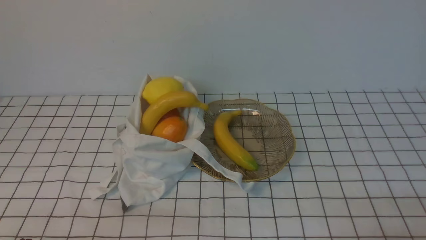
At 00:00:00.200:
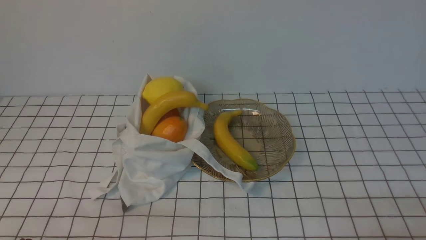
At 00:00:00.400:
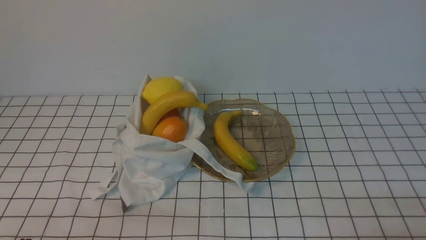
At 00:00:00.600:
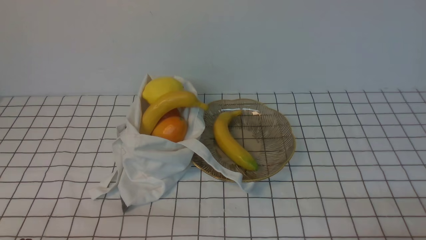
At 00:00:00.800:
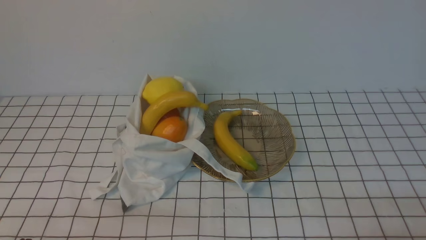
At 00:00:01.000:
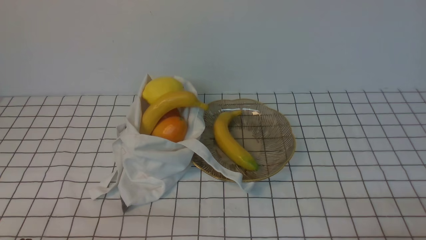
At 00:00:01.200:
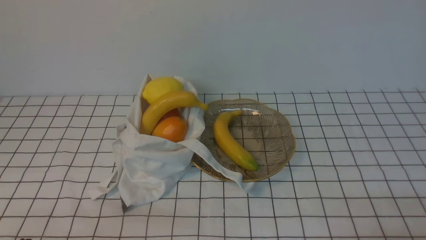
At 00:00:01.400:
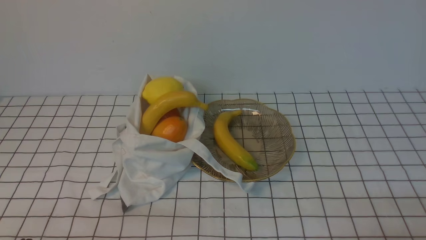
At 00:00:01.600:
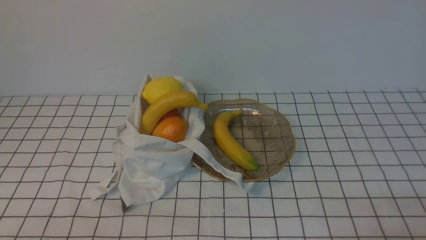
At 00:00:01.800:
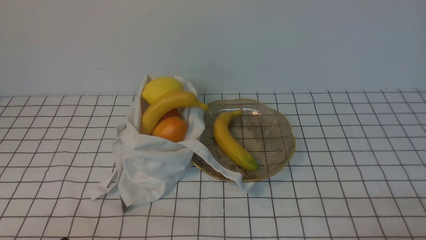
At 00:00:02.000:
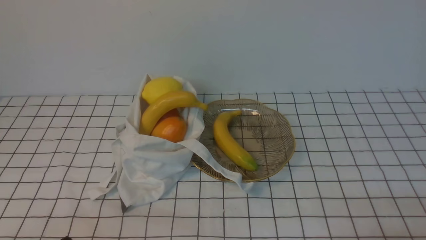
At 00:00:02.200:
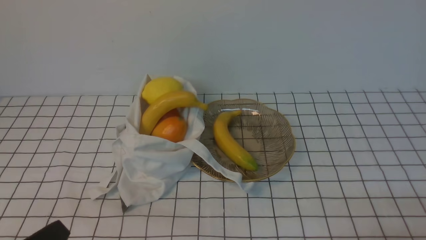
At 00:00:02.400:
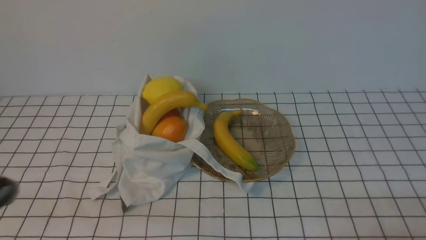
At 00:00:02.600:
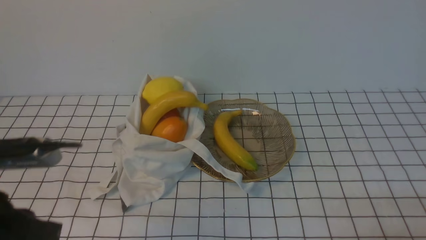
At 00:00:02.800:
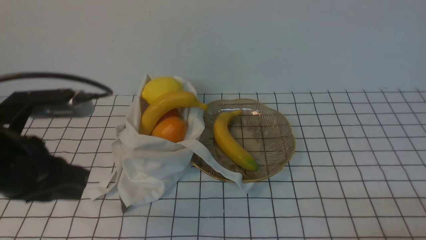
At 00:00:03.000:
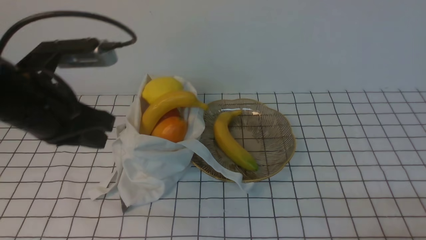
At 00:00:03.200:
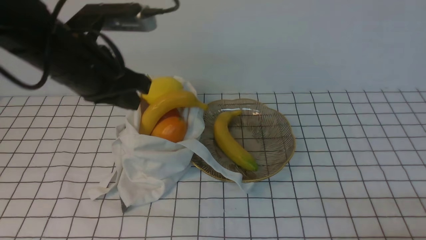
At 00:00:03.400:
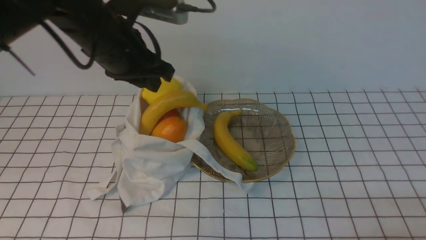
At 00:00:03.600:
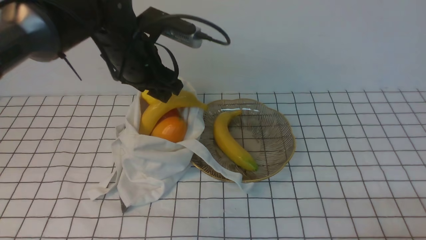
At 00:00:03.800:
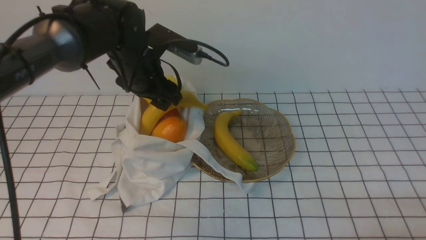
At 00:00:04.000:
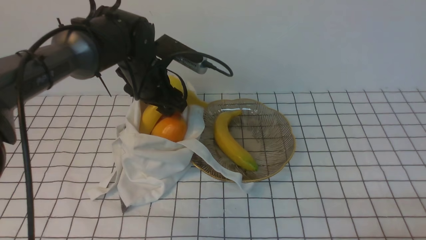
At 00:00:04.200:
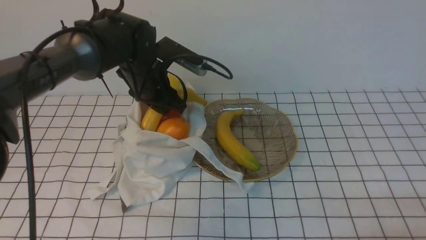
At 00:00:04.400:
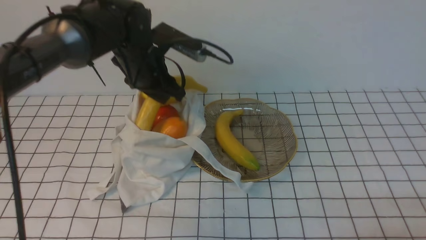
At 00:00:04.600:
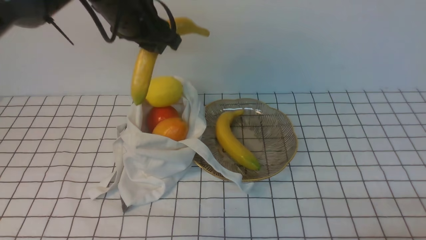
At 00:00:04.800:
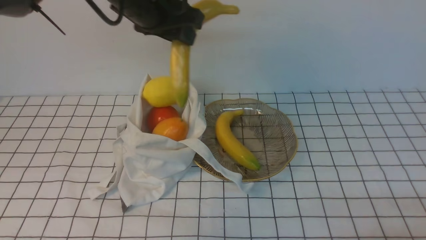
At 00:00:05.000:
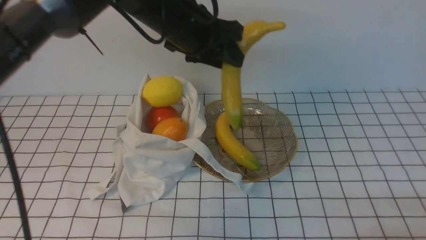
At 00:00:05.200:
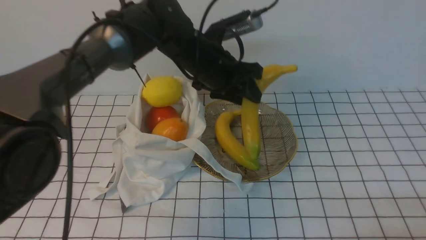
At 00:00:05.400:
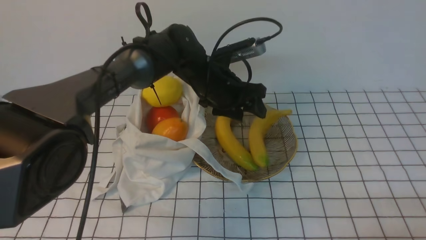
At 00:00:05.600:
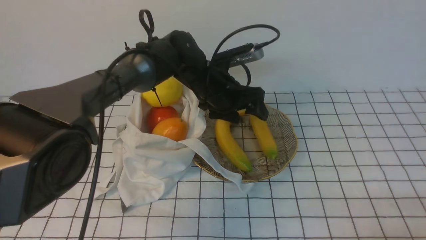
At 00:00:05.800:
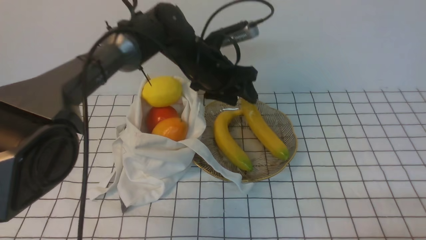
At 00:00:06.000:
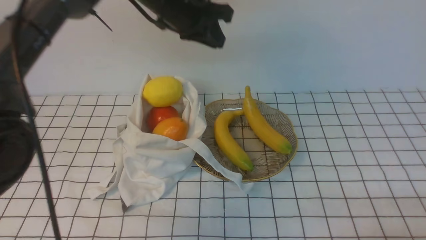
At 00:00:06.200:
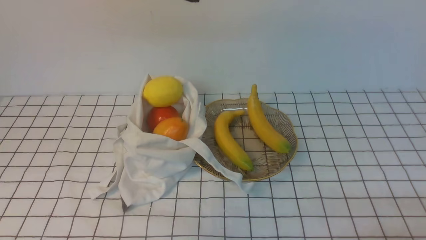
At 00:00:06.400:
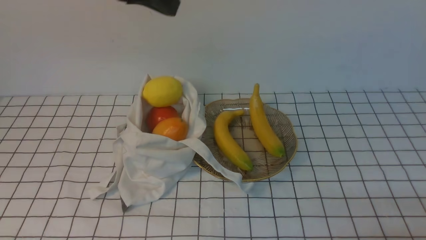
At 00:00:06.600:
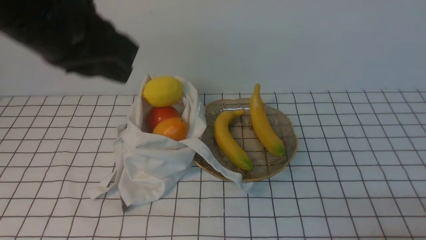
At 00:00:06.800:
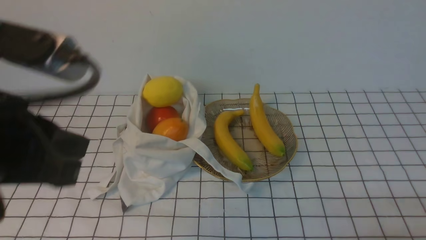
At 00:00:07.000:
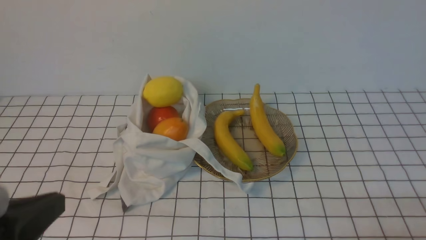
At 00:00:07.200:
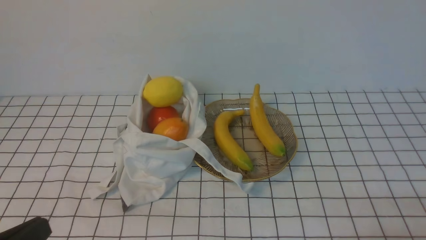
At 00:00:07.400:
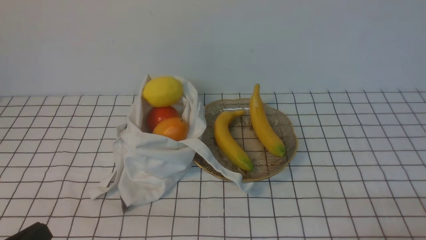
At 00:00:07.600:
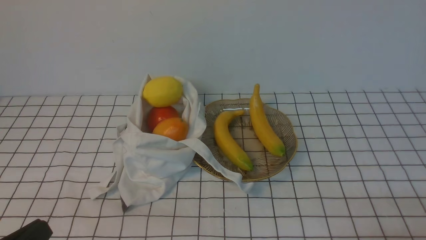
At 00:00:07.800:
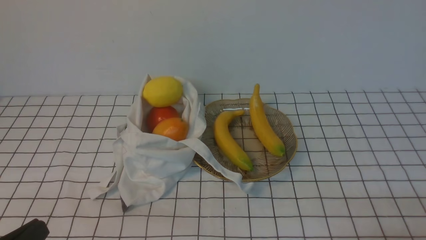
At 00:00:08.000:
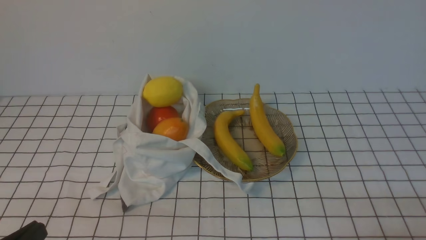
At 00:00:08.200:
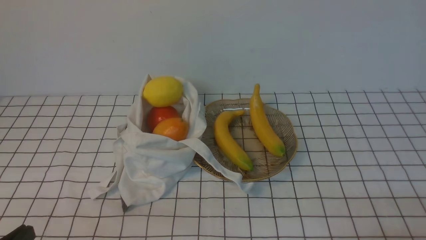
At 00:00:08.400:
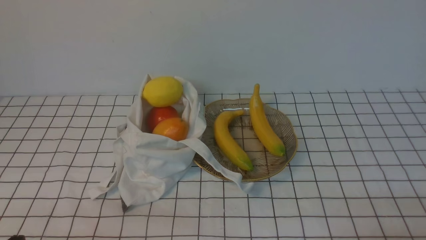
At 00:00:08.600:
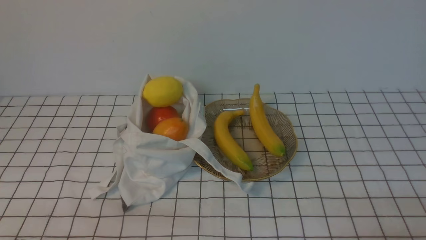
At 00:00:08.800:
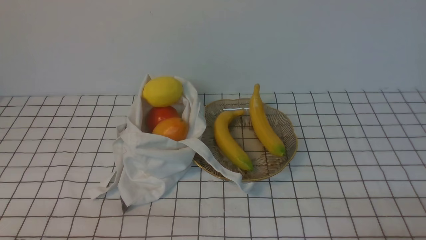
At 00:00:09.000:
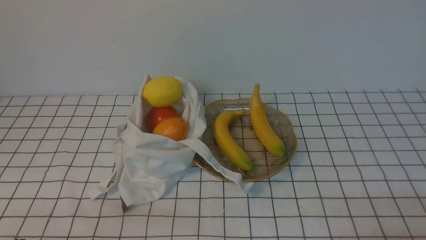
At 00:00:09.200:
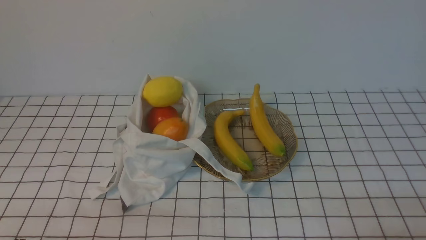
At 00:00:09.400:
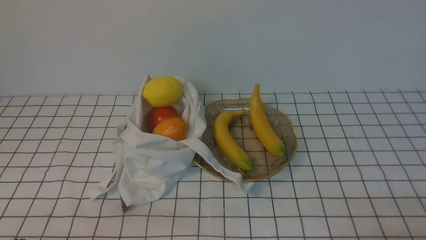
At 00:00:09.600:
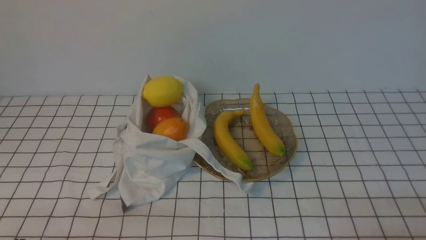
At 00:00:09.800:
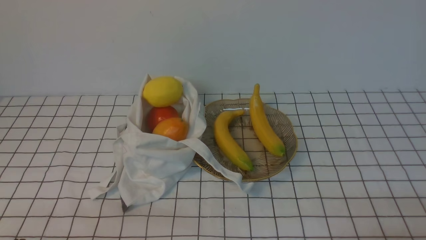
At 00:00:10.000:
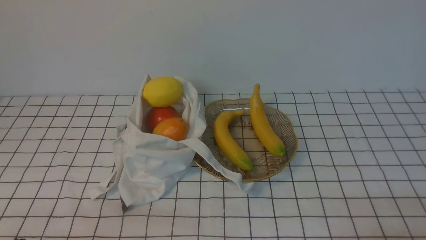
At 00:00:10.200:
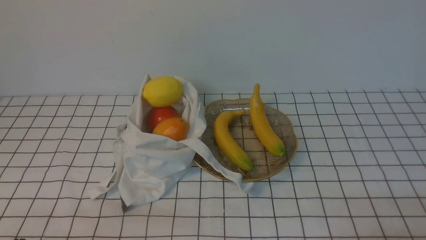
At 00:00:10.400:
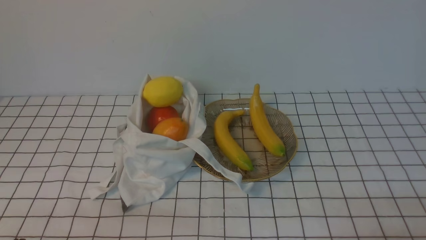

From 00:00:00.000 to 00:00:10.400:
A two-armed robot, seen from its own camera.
Step, from 00:00:00.000 to 00:00:04.200: use the left arm to grab a banana from the bag.
Step, from 00:00:04.400 to 00:00:05.600: use the left arm to put the banana into the empty plate on the right.
From 00:00:01.400 to 00:00:03.000: The left gripper travels forward and upward by roughly 25 cm.
From 00:00:03.000 to 00:00:04.400: The left gripper shifts approximately 15 cm forward and to the right, and opens.
From 00:00:04.400 to 00:00:06.000: The left gripper swings up and down, about 15 cm each way, with 2 reversals, and closes its fingers.
From 00:00:06.000 to 00:00:07.400: The left gripper heads backward and to the left, covering about 40 cm.
From 00:00:09.000 to 00:00:10.400: Both grippers stay about where they are.
